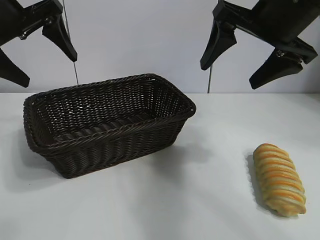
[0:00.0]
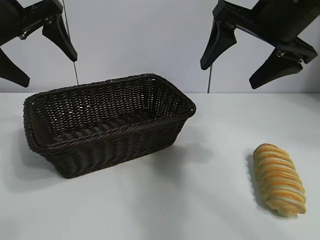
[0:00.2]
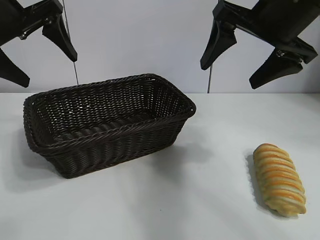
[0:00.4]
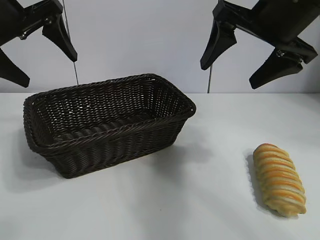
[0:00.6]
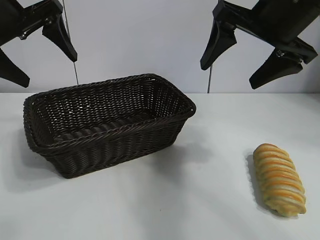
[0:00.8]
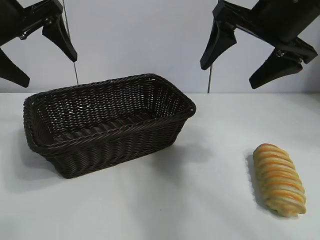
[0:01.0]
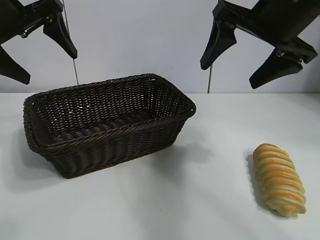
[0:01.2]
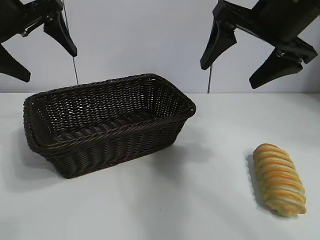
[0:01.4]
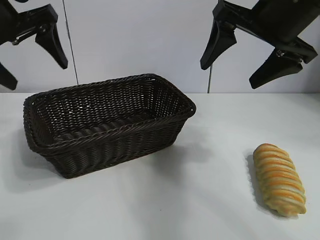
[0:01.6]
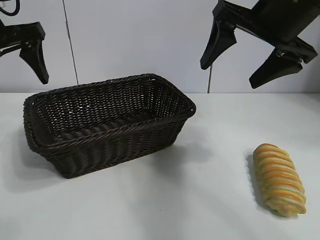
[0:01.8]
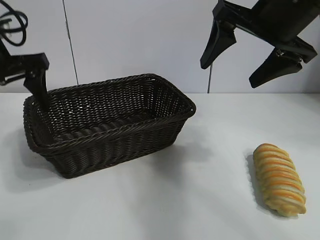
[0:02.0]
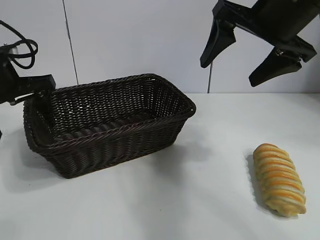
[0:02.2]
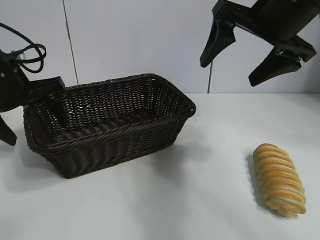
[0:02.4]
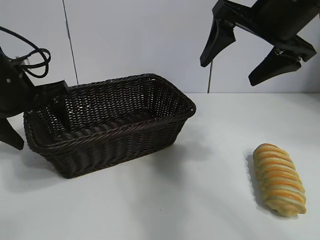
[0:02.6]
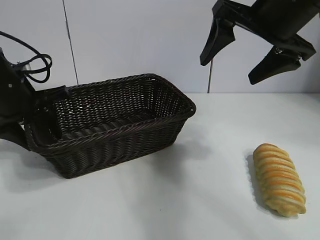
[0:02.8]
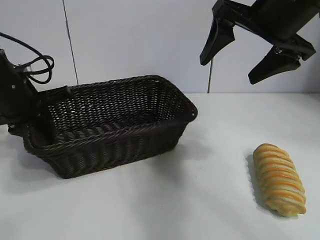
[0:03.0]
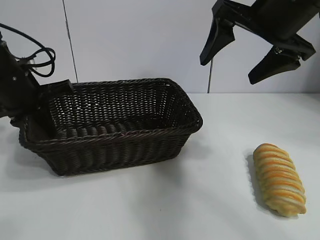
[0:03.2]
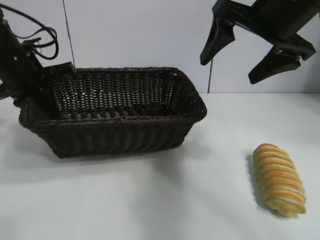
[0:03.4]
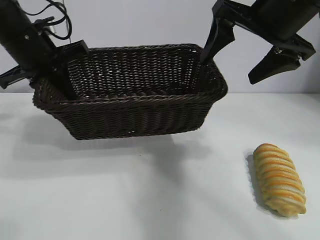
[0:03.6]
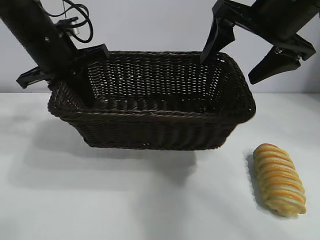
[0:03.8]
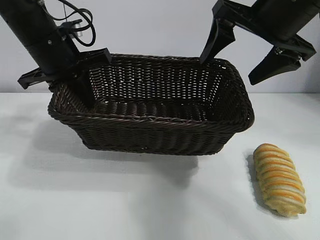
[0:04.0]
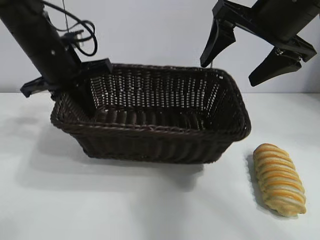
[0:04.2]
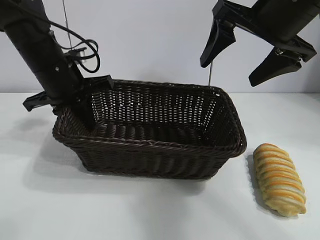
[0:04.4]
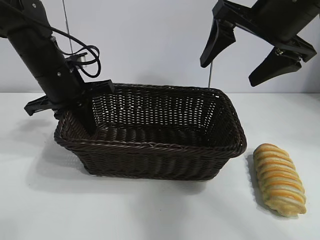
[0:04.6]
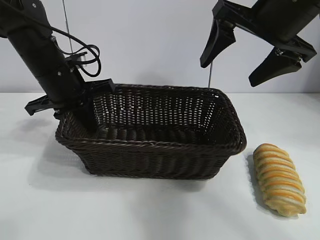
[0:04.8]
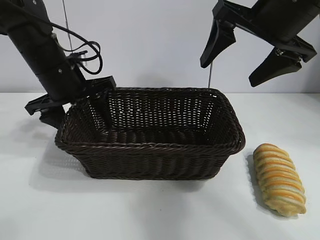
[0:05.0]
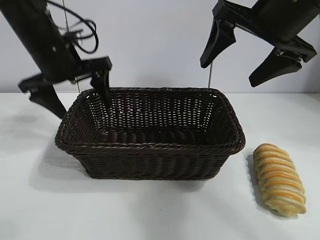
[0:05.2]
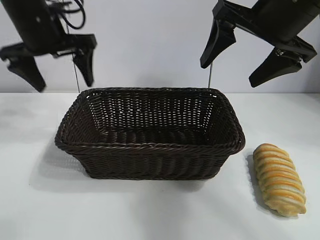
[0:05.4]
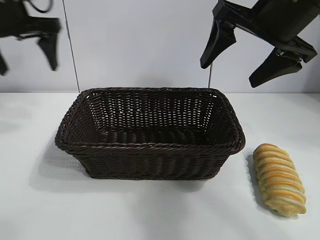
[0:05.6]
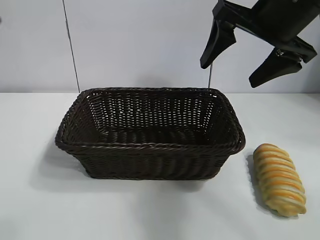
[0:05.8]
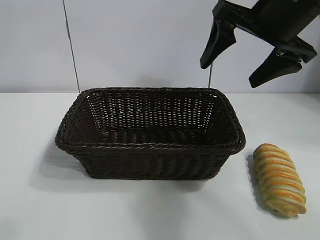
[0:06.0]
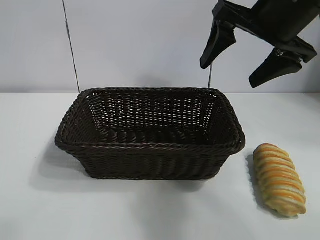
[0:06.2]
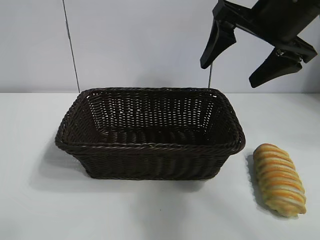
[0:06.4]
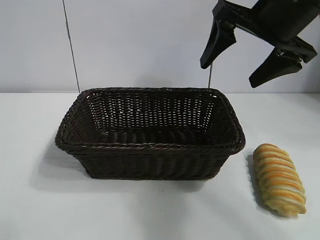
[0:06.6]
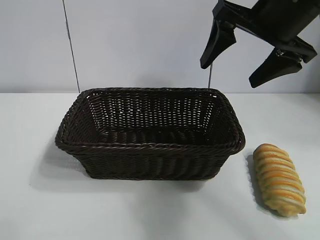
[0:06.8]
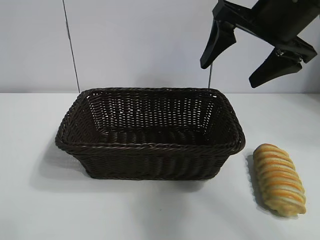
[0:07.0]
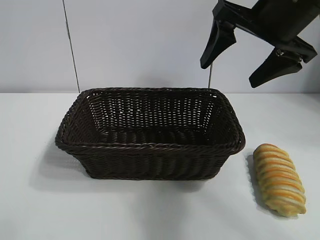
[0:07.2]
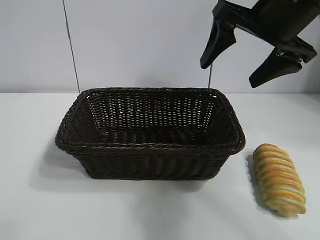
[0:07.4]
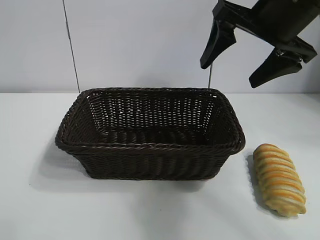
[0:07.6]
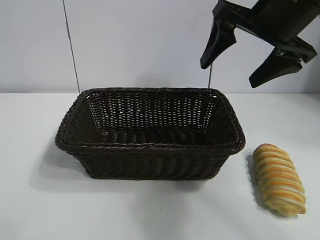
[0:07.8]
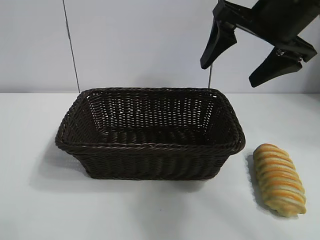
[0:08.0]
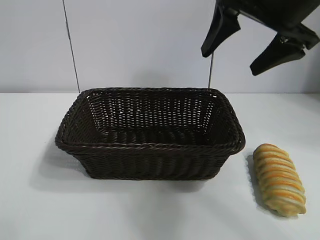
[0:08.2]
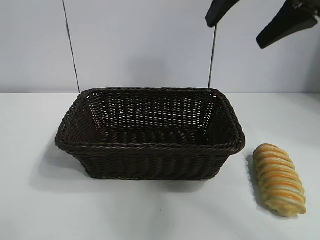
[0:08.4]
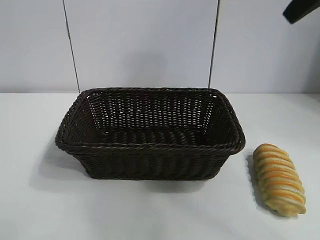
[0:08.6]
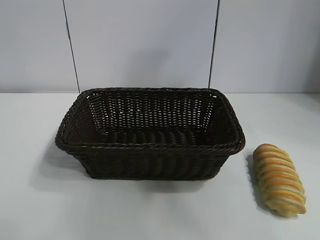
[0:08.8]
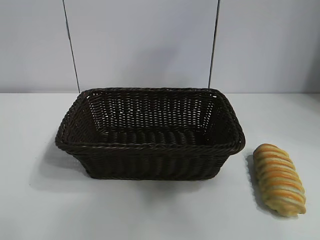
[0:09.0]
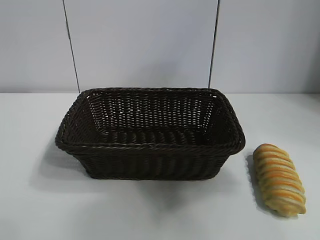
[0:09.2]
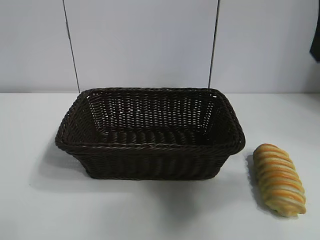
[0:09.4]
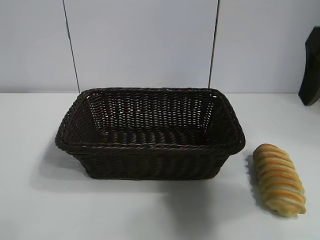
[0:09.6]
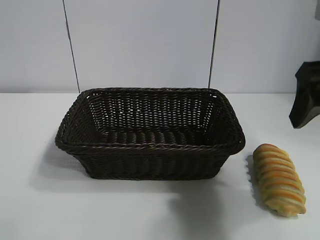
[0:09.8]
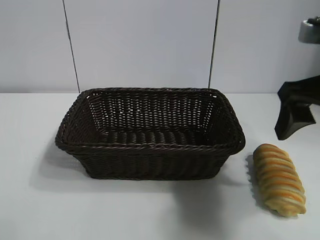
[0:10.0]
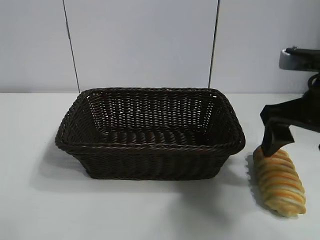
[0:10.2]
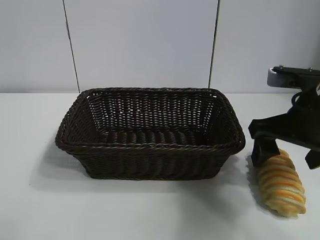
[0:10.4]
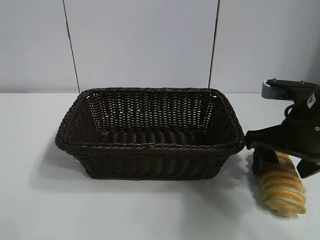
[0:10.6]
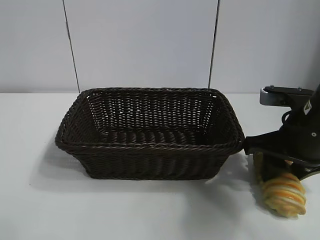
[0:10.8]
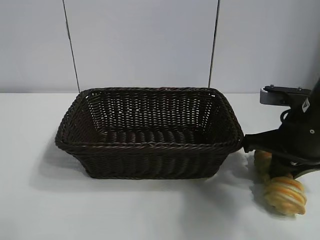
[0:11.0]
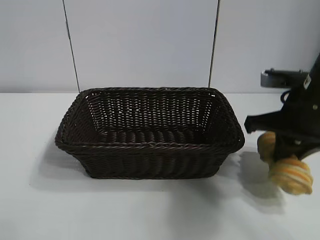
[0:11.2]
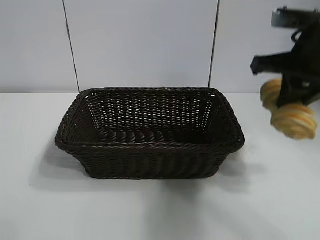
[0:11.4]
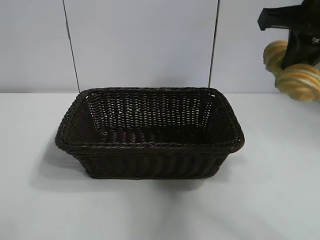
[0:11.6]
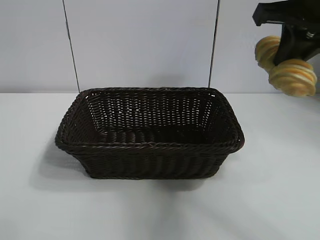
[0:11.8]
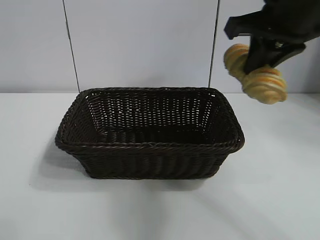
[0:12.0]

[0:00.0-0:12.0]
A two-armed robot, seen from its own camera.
Task of the whole recording: pick up the long bread and put it into the basket.
Step, 0:01.2 to 0:03.0: Grasp the basket with the left gripper.
Step, 0:03.4 to 0:05.0: Place the basket in the center of the table with the left gripper.
Step, 0:05.2 to 0:10.8: Grasp the long bread with right gripper.

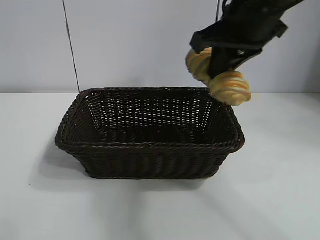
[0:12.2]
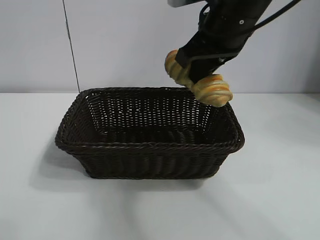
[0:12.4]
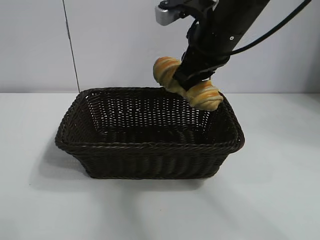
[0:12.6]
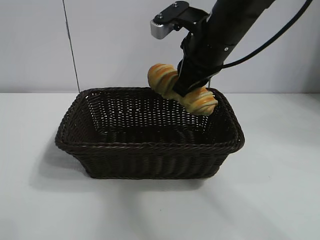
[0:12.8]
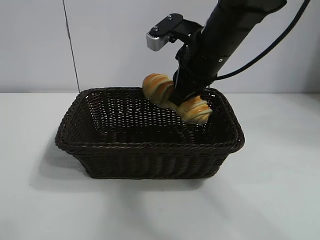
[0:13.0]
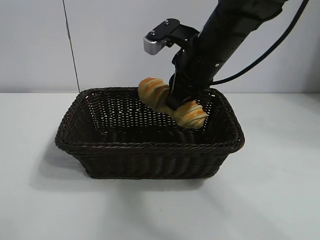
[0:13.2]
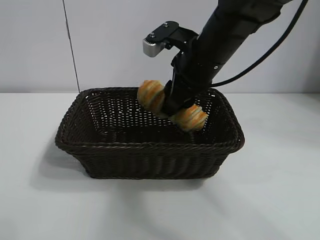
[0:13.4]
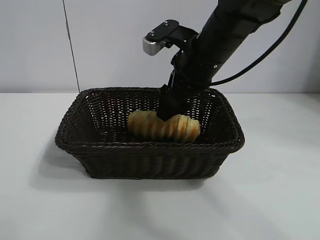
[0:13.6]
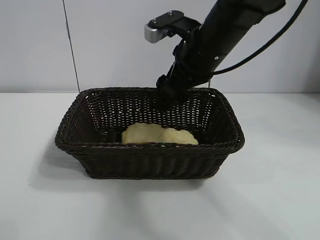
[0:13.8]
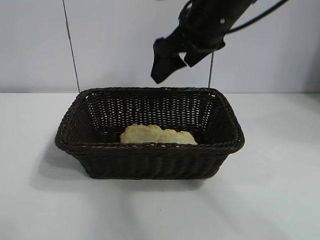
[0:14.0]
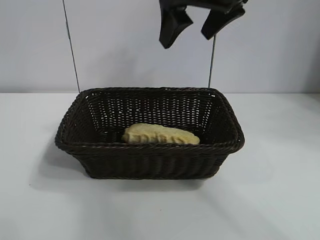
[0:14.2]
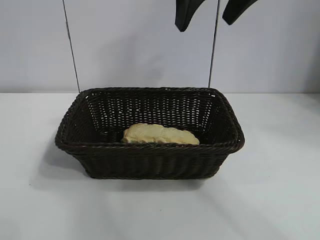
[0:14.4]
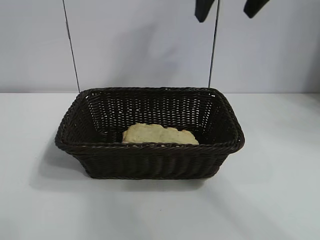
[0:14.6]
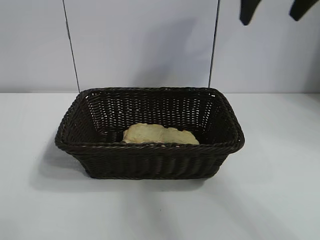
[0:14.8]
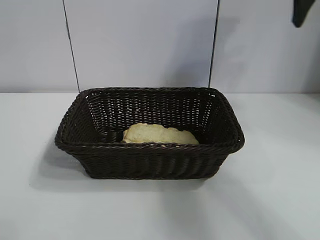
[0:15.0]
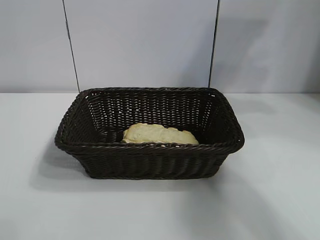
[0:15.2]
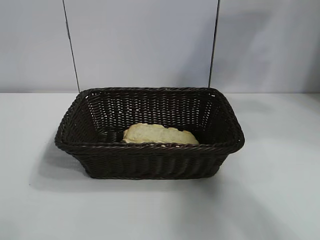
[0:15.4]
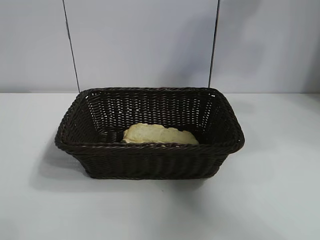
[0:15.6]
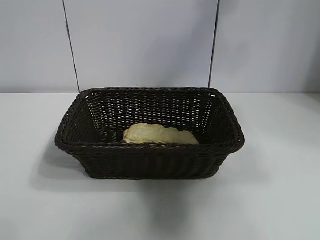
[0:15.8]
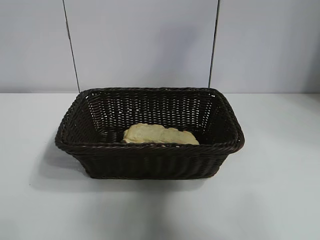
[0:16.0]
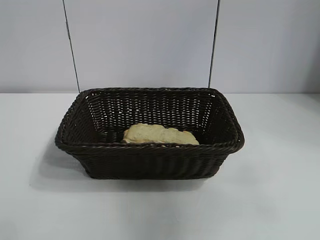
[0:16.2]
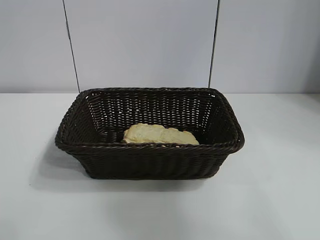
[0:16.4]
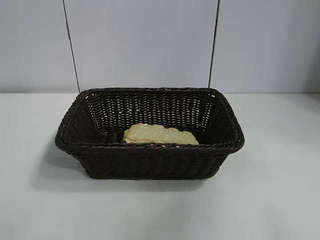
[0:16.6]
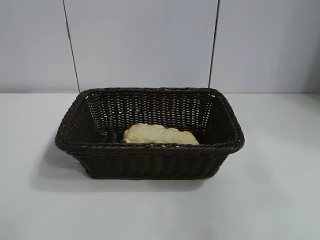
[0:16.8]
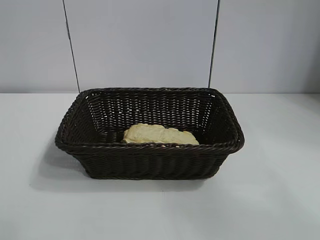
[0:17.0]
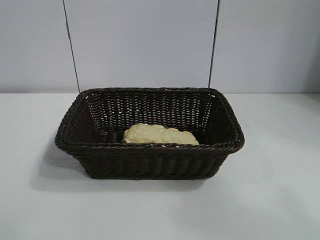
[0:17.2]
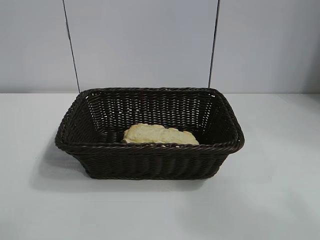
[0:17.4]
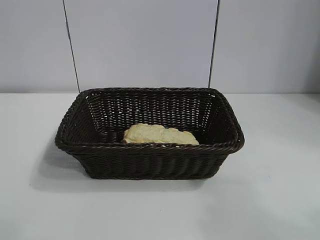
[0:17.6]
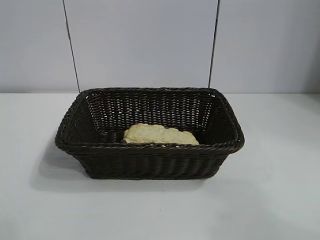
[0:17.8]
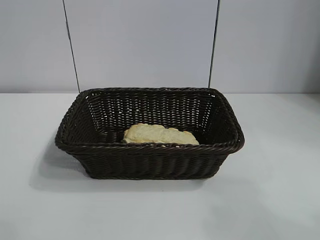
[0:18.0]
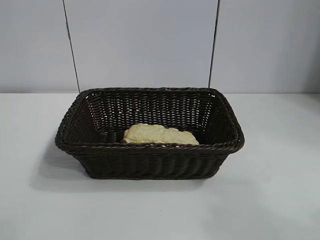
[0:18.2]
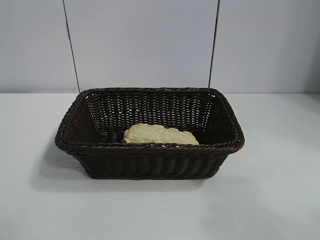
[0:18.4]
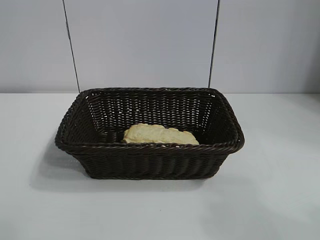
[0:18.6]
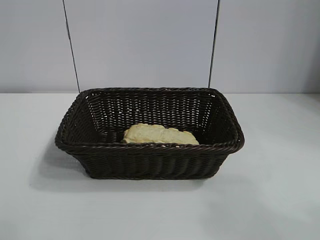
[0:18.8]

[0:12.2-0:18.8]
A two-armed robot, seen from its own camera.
Task of the whole recording: pick up the long bread and put it into the basket.
Step, 0:12.2 to 0:13.8: Place the long bread in the basket with right gripper.
